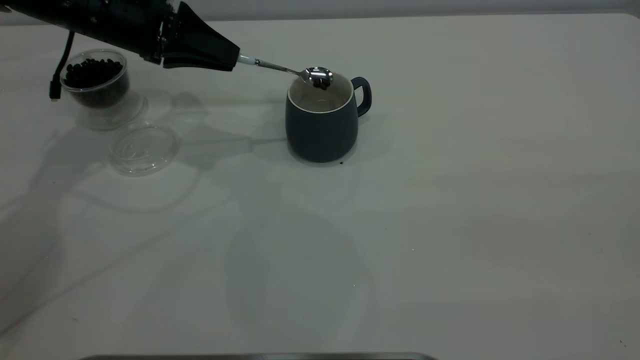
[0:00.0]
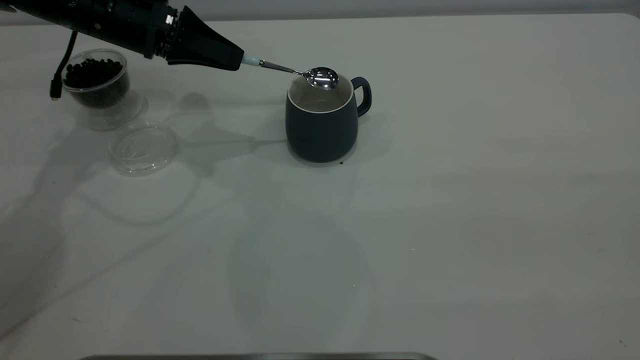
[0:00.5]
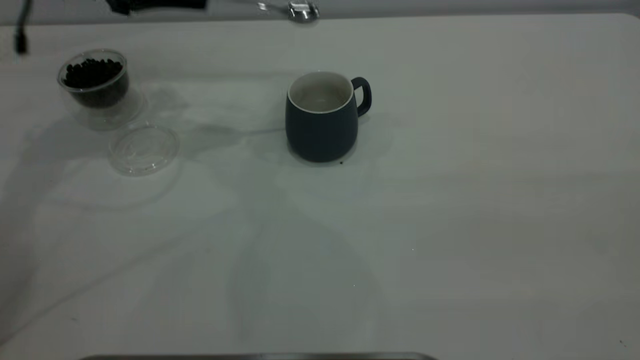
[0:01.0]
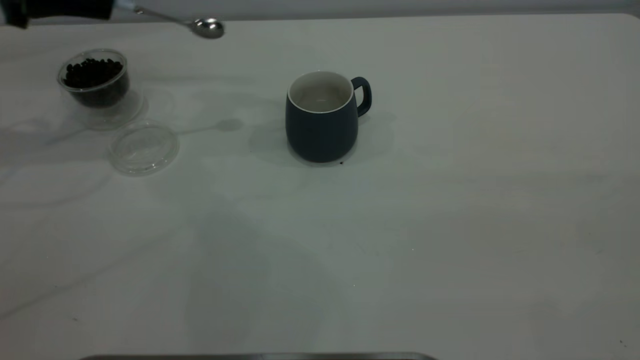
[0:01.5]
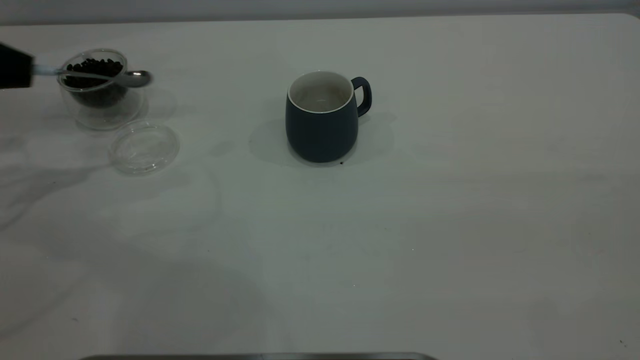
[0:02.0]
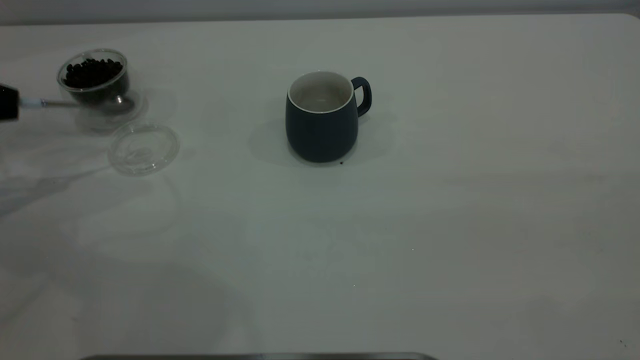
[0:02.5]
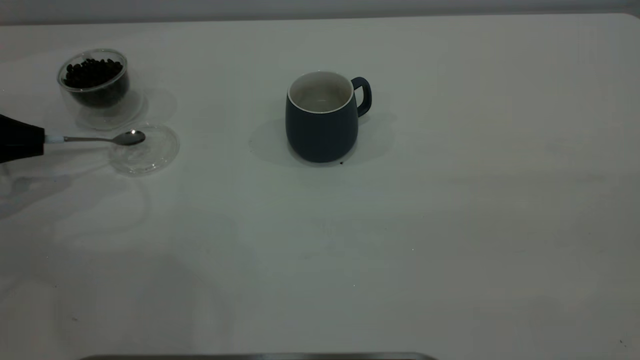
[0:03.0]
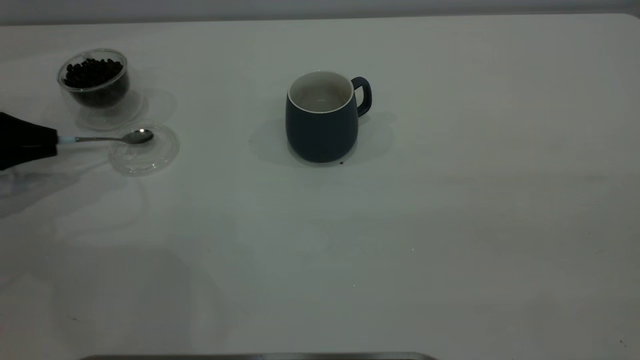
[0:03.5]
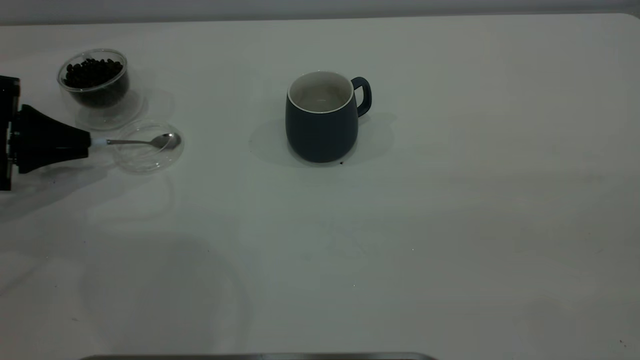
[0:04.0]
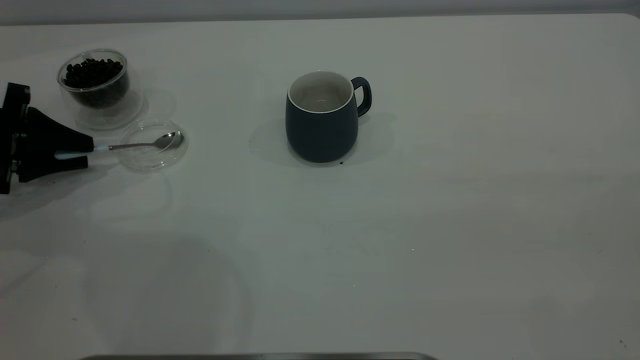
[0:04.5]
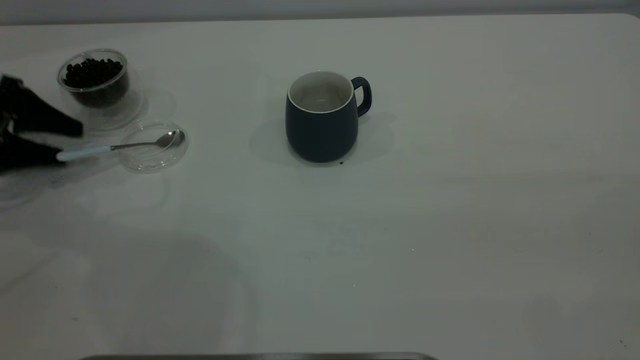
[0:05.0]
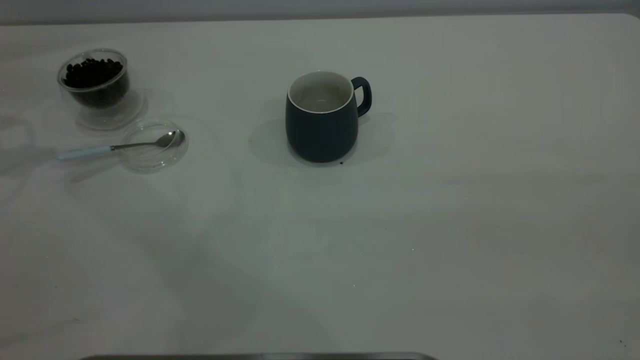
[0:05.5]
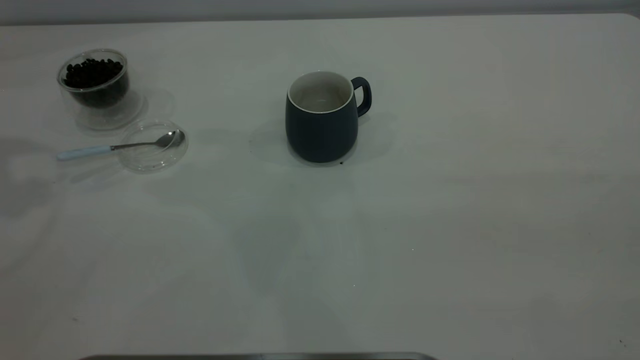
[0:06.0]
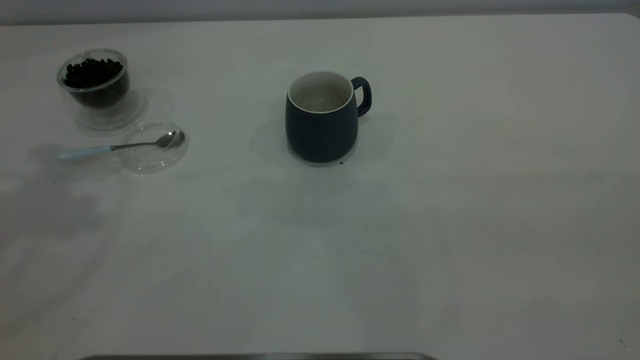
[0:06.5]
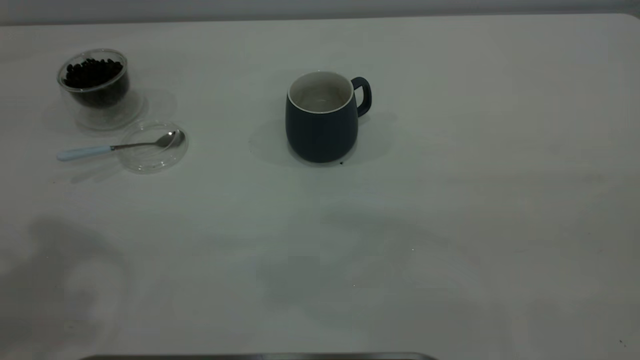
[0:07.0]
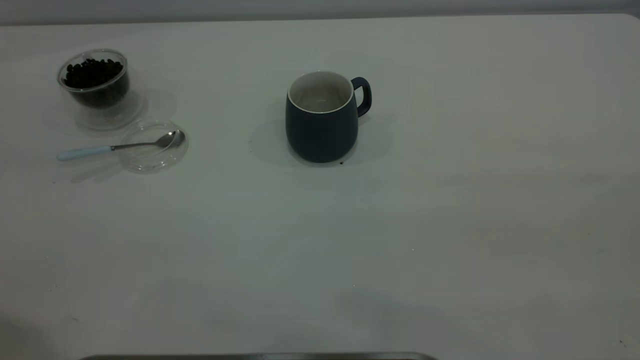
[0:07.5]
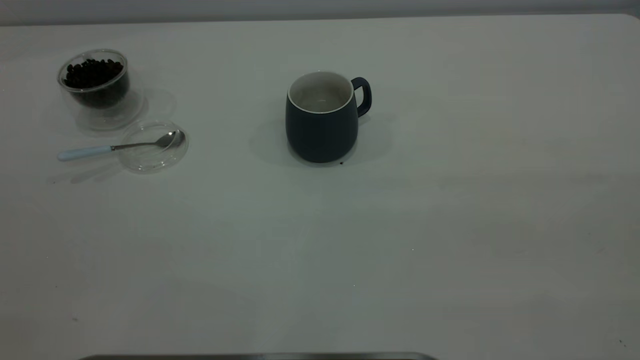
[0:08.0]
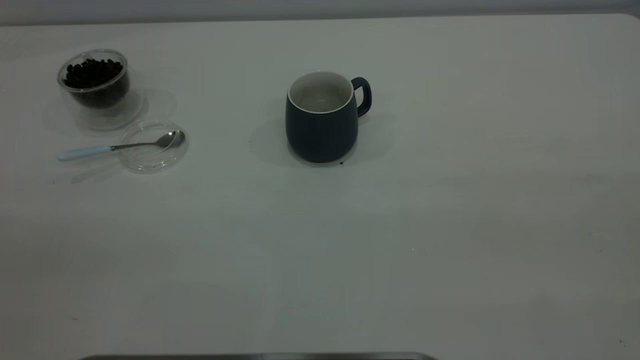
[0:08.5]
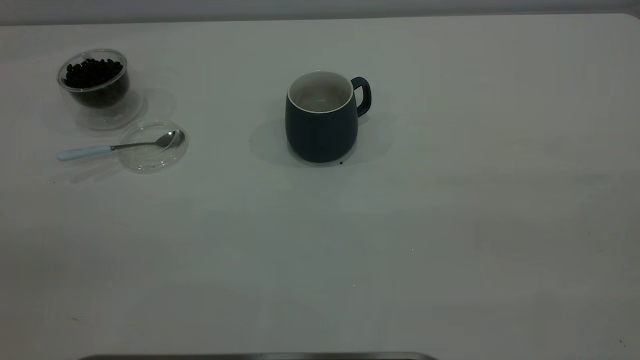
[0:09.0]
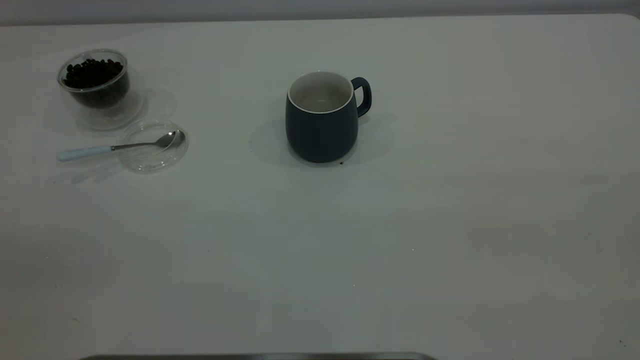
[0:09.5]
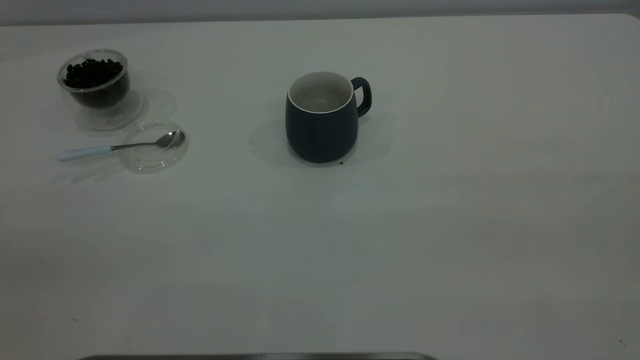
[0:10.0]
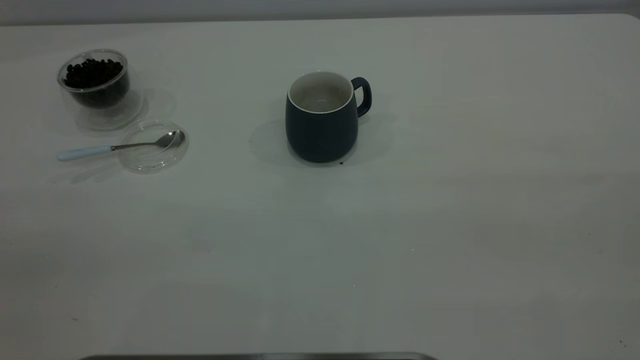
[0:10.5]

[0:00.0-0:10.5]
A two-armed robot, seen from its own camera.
Task of the whole recording: the right gripper place the grey cup in the center of the table, the left gripper take the blue spoon from the cup lid and scoop out the coffee beans from the coffee cup and put them into the grey cup, the left gripper put the spoon back into the cup lid.
Step, 0:01.0 to 0:05.0: Place the spoon back in its original place.
0:00.0 to 0:02.0: The left gripper heads to the left and backward, covering some 20 cm.
0:02.0 to 0:04.0: The left gripper shifts roughly 10 cm downward.
0:04.0 to 0:06.5: The left gripper is displaced upward by some 35 cm, and opens its fingers.

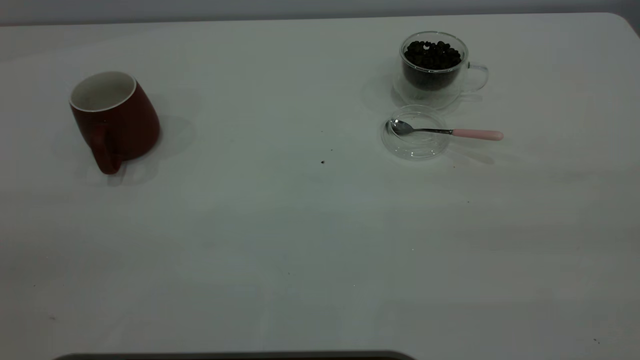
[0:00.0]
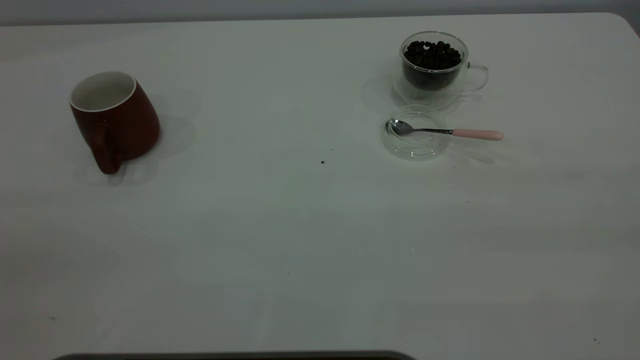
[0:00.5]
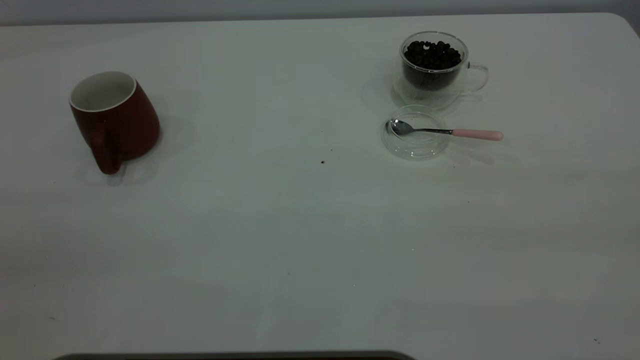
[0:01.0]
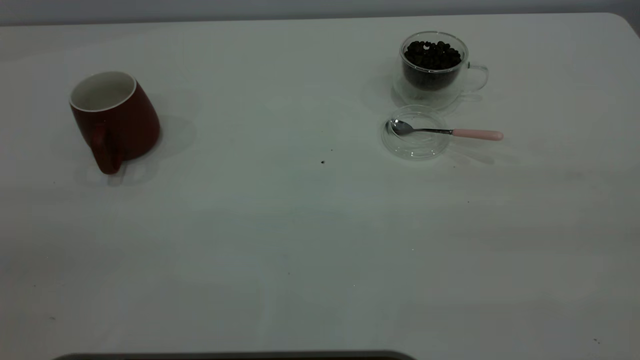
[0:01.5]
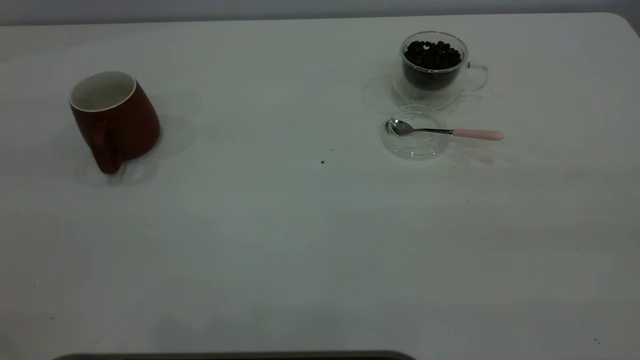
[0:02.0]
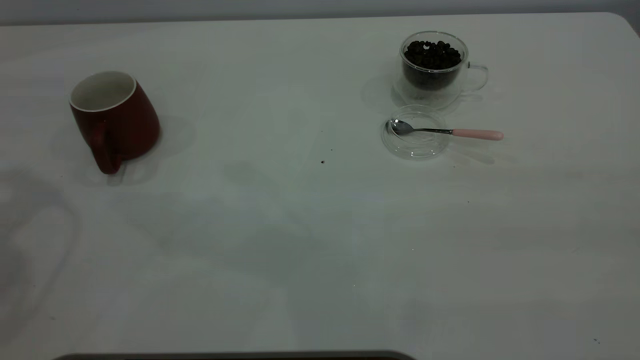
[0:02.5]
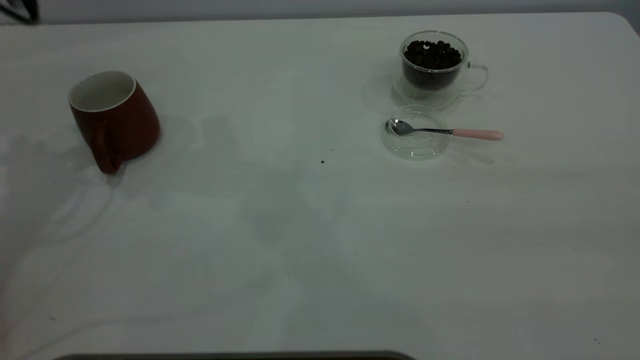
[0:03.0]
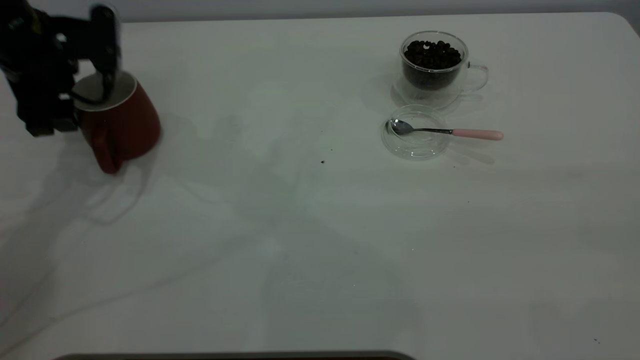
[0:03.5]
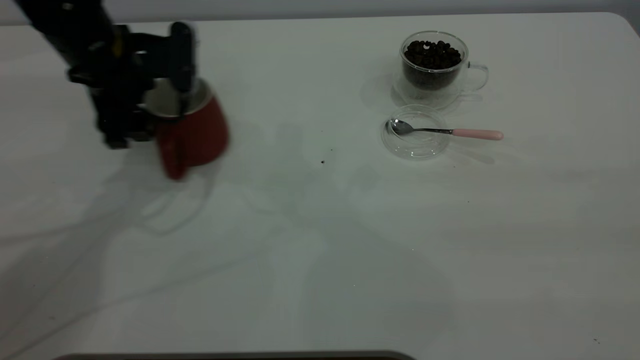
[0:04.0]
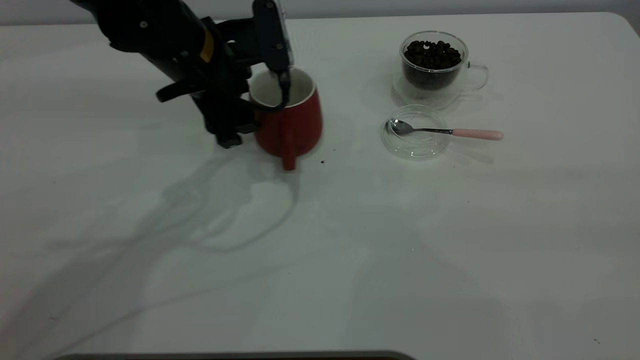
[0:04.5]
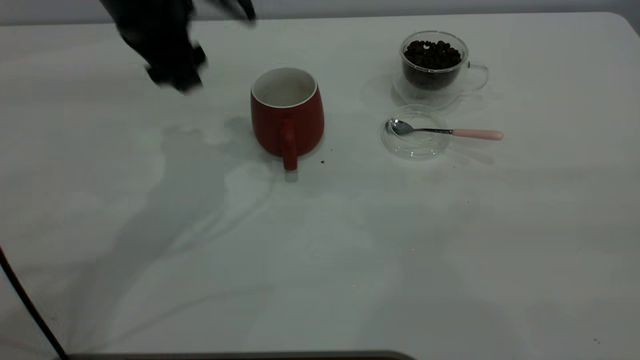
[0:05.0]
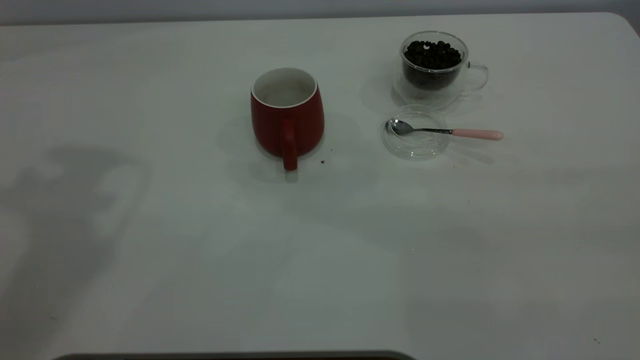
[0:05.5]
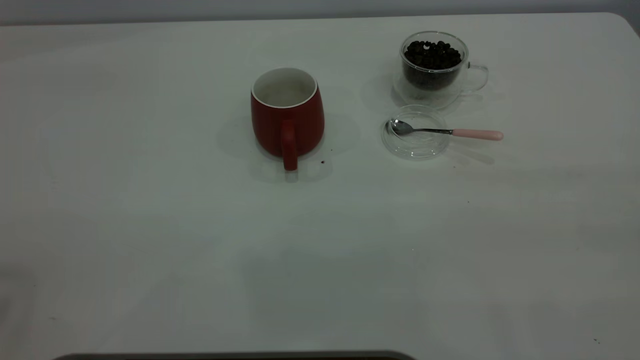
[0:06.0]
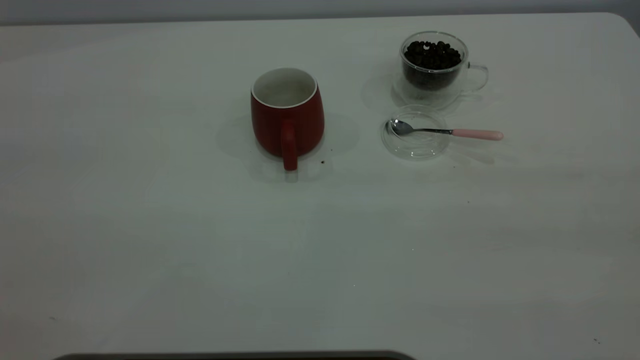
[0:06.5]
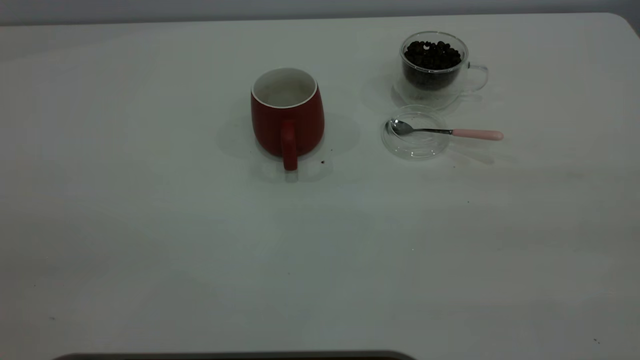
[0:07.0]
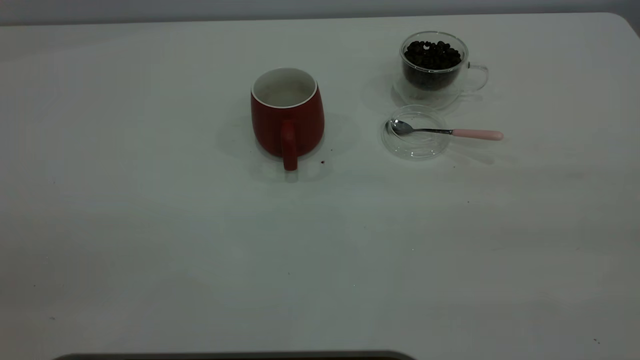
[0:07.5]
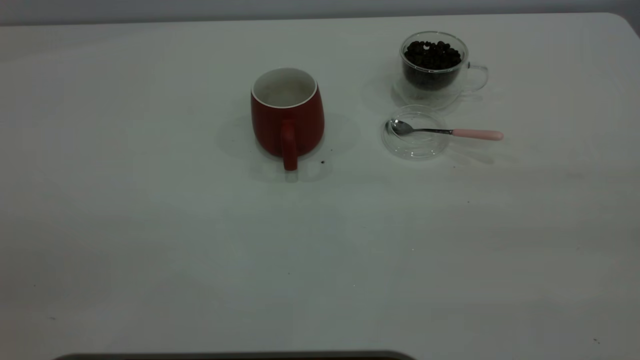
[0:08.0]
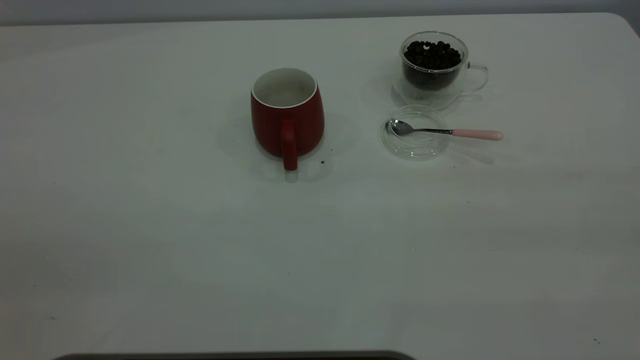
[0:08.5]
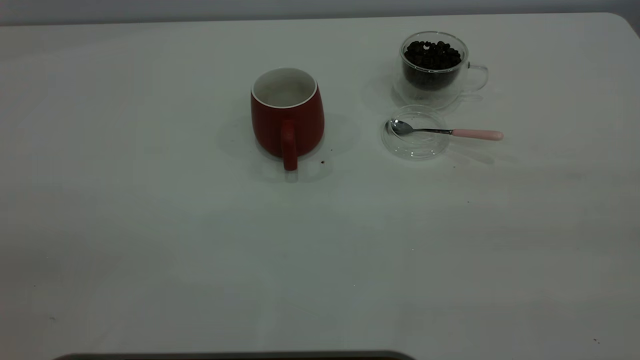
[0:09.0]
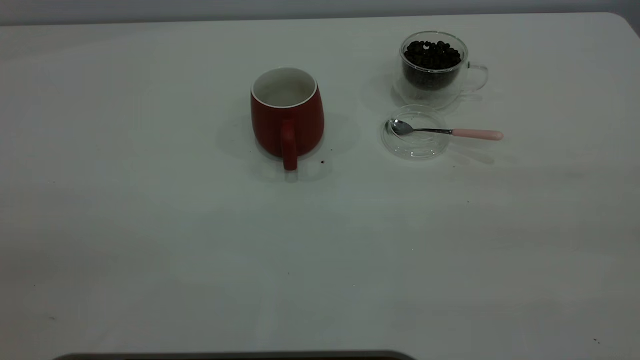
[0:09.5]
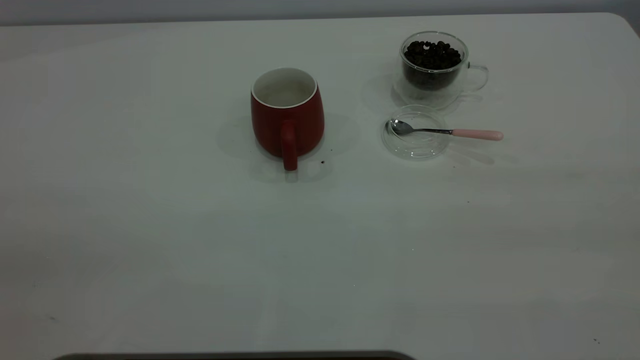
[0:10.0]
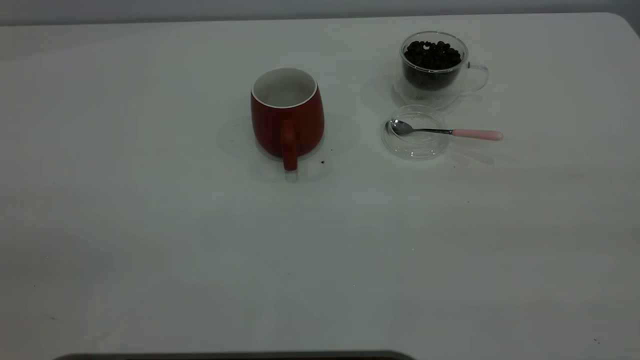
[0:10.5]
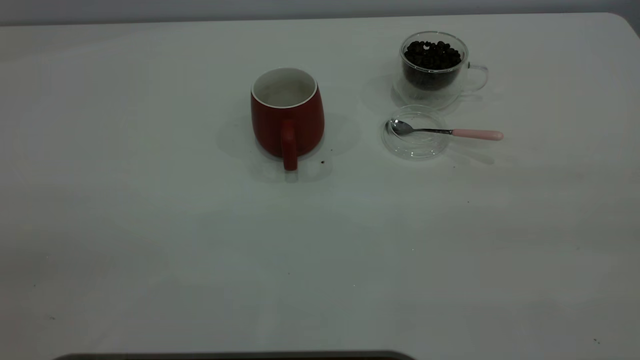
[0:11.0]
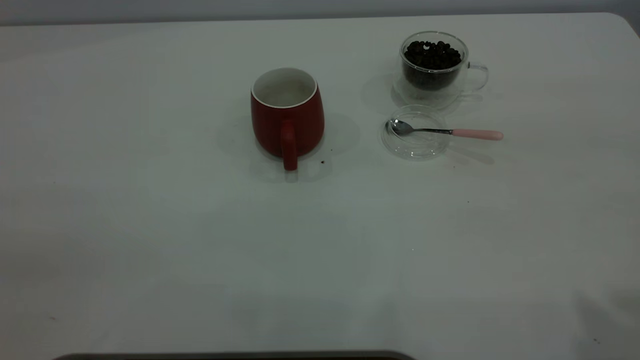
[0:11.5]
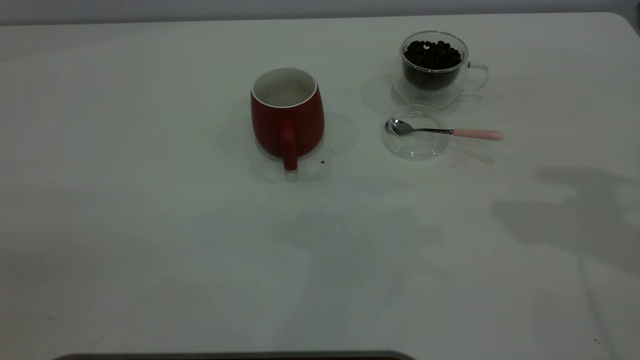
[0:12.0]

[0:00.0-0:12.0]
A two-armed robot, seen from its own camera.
Task of the whole recording: the left gripper place the red cup in the center of the table, the right gripper take the pink spoon from the cup lid and scoop out the coffee beans from the coffee cup and put them into the red cup, the right gripper put the spoon back into the cup lid.
Step, 0:00.0 to 0:04.5: Move the cup to the center of view.
0:02.0 to 0:04.0: The left gripper goes about 40 cm downward, forward and to the right.
0:04.0 to 0:06.0: The left gripper goes approximately 50 cm upward and backward.
